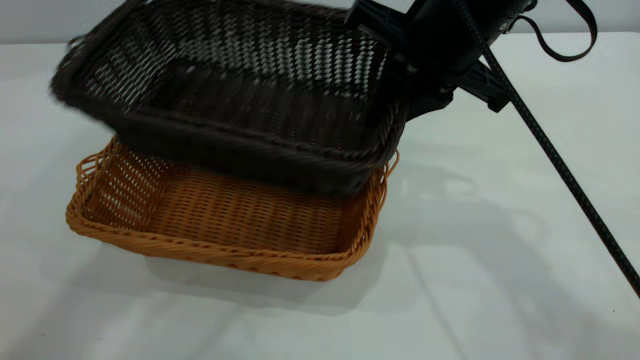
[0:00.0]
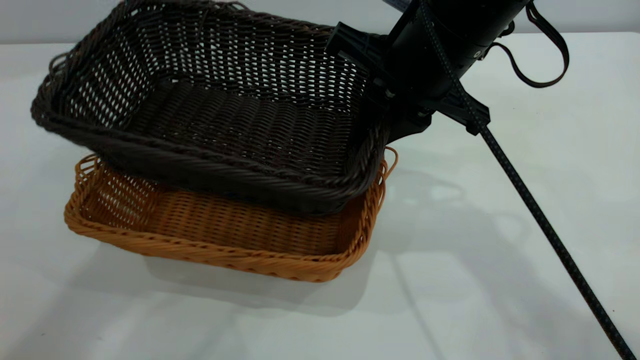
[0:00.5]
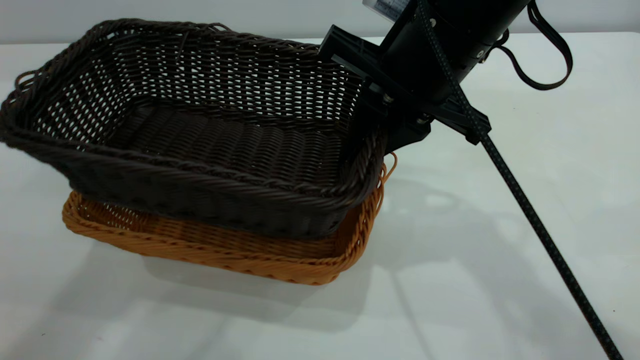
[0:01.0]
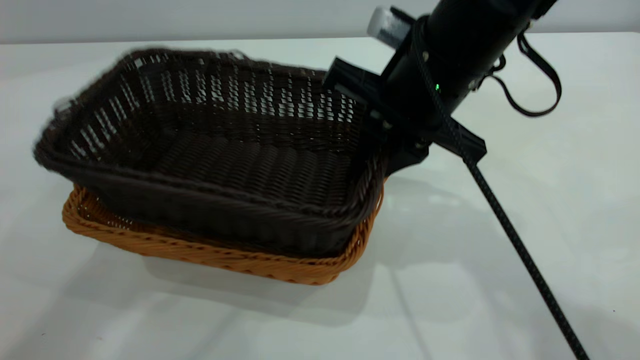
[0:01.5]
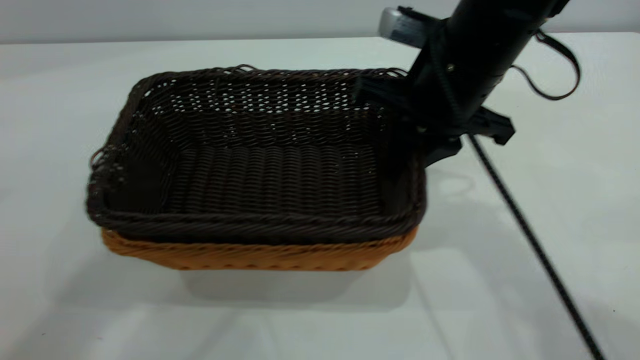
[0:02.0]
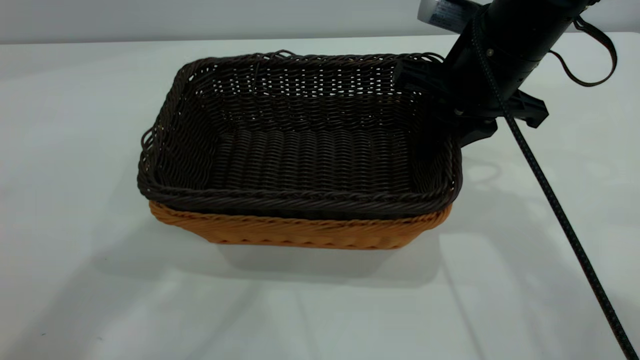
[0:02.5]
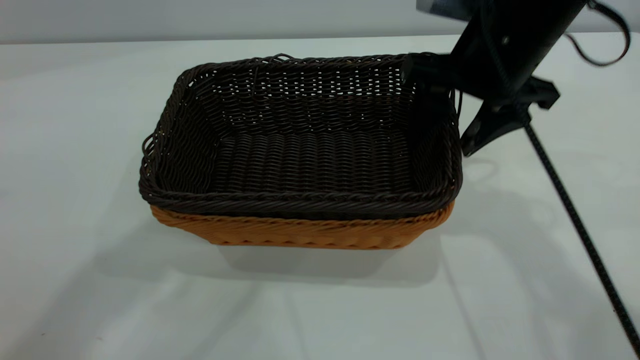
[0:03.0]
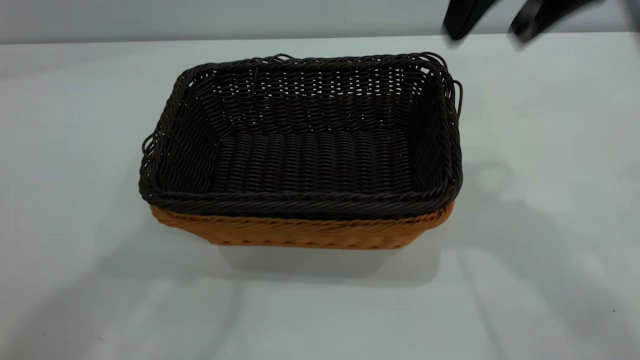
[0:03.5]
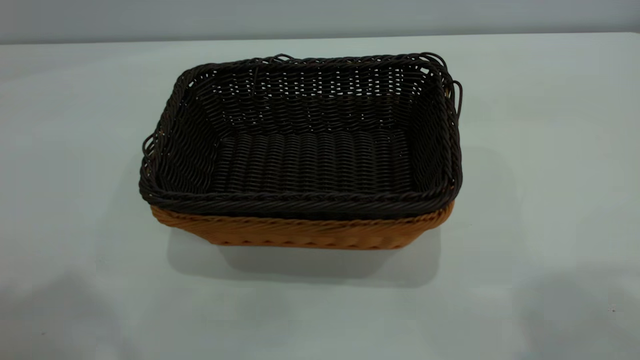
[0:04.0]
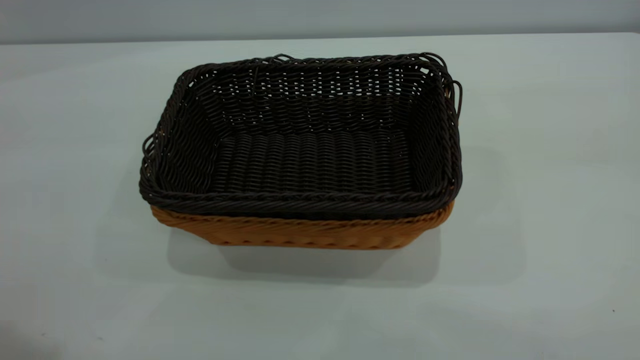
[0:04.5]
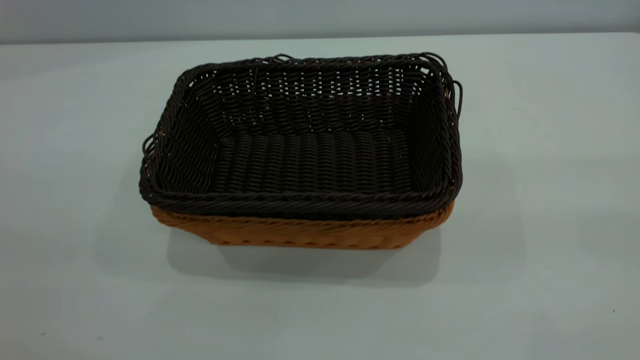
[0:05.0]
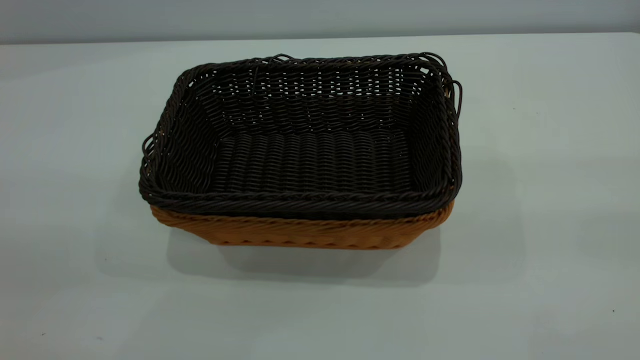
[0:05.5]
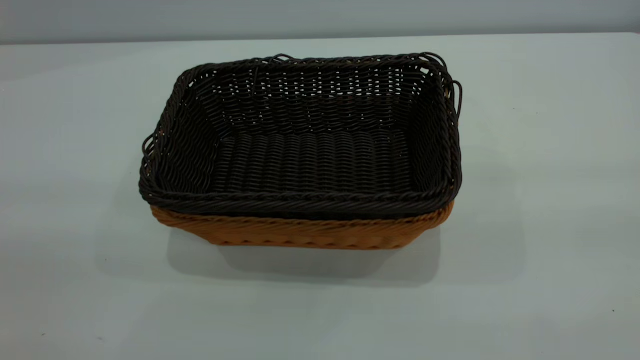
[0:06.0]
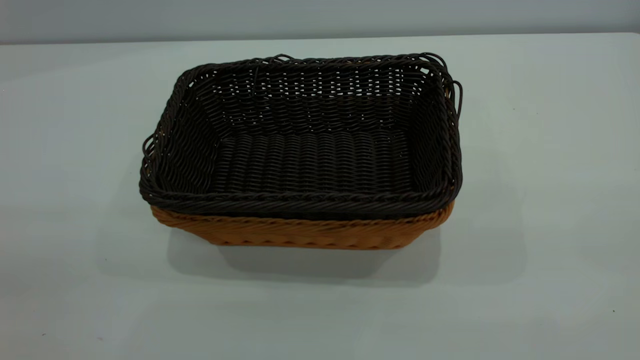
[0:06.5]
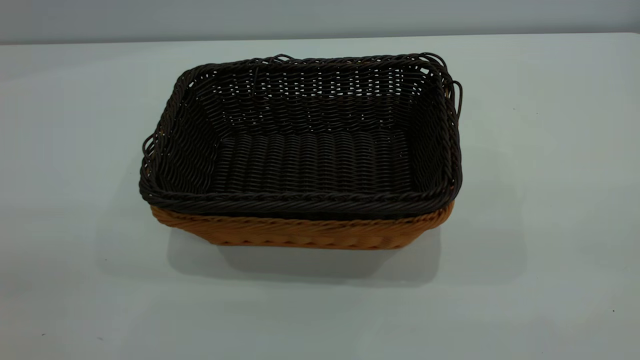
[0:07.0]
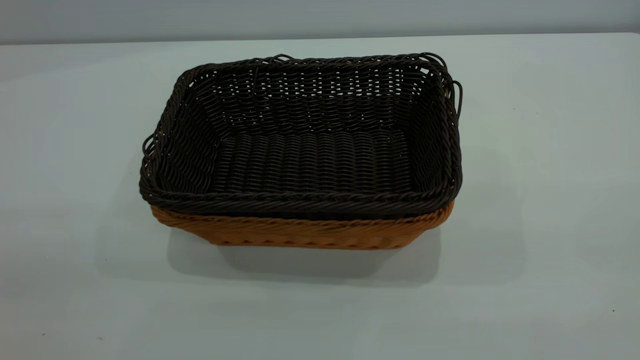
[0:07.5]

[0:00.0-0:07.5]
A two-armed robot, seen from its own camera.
Task of the whole recording: the left gripper grasp the brown basket and place it in the center of the table, the right gripper grasp the black basket and place it inside the brown one.
Step, 0:00.0 to 0:03.0: Place the dark basket on top of the light basket.
0:02.0 to 0:04.0: The right gripper travels upward and backward by some 35 cm, and opens its fingers, while the left gripper goes about 20 cm backward, to the left and upward.

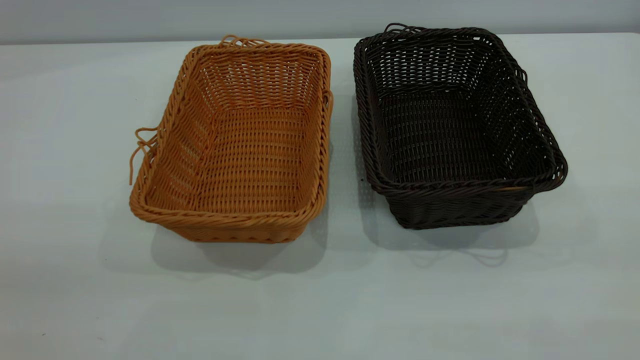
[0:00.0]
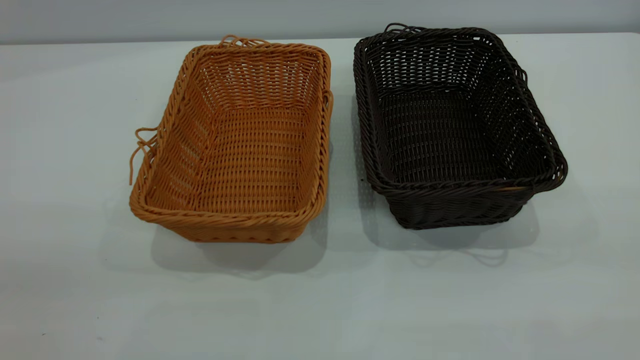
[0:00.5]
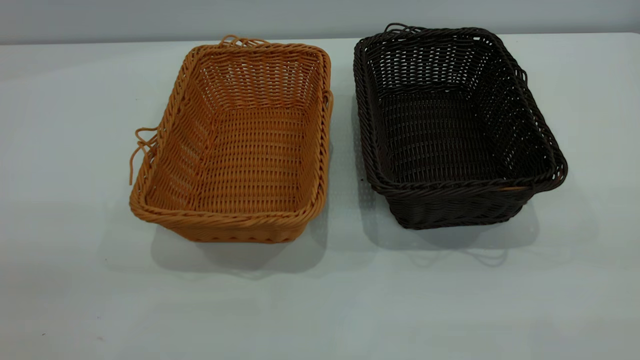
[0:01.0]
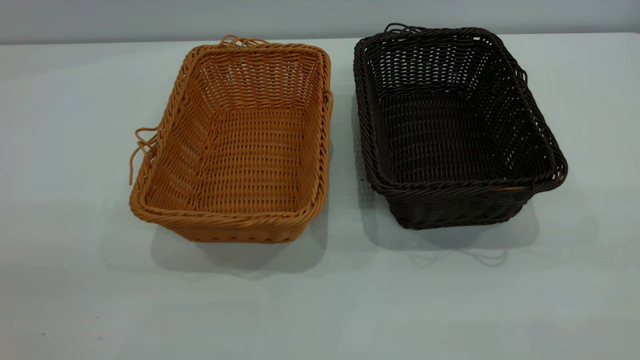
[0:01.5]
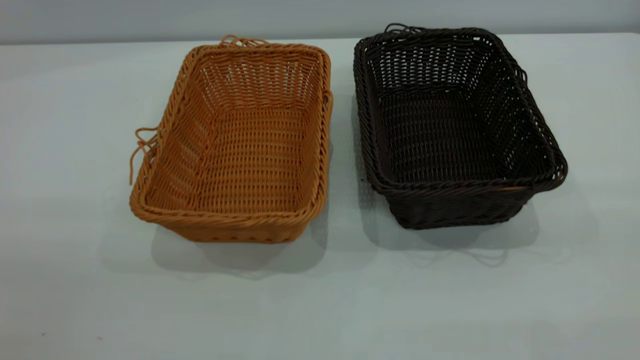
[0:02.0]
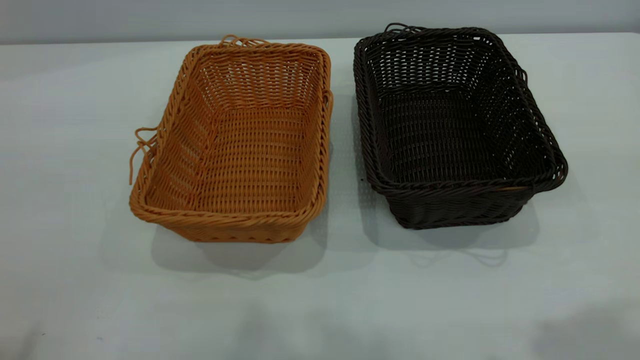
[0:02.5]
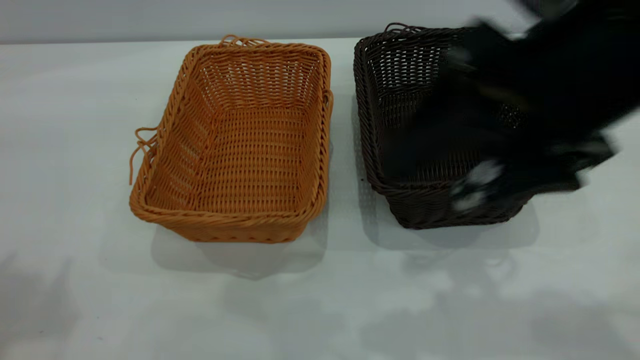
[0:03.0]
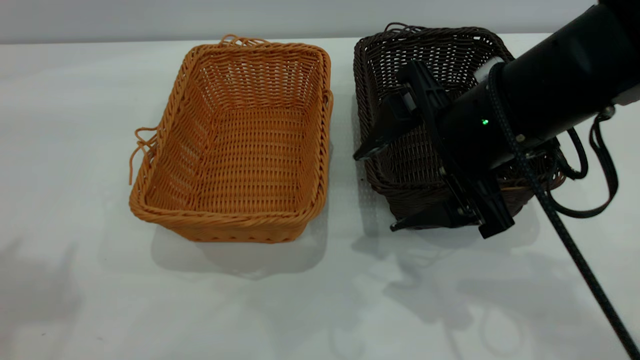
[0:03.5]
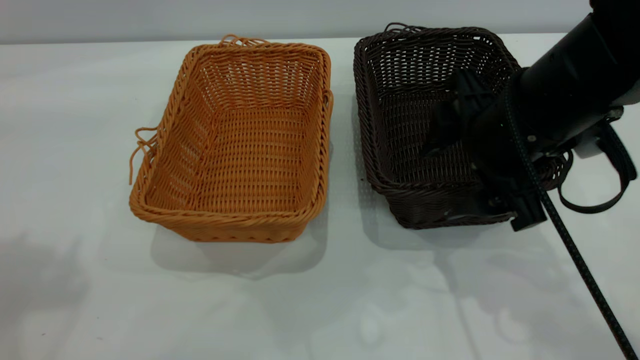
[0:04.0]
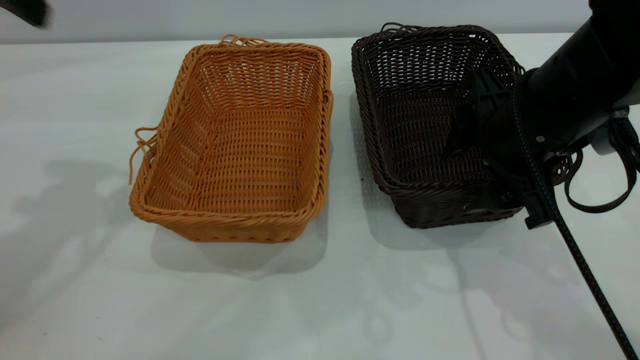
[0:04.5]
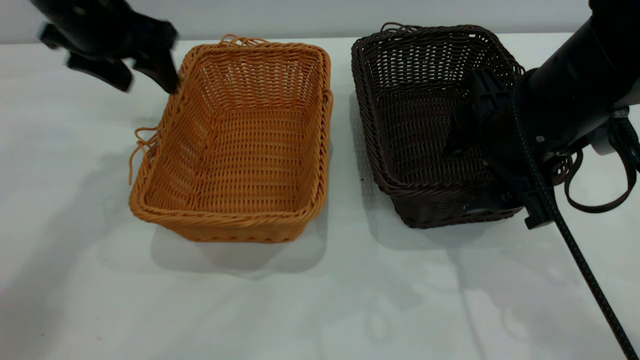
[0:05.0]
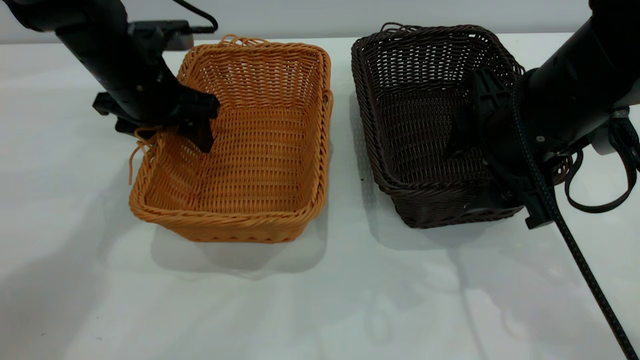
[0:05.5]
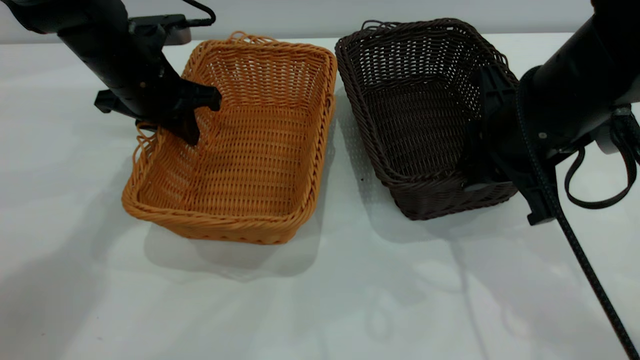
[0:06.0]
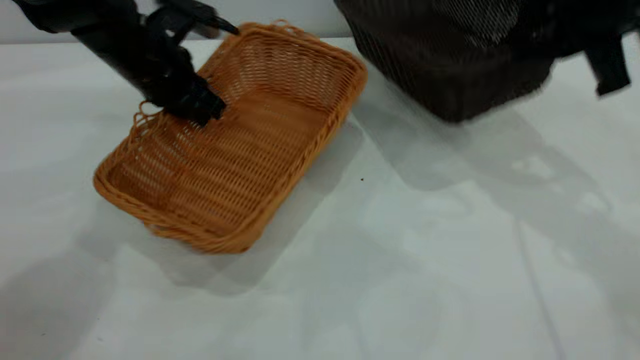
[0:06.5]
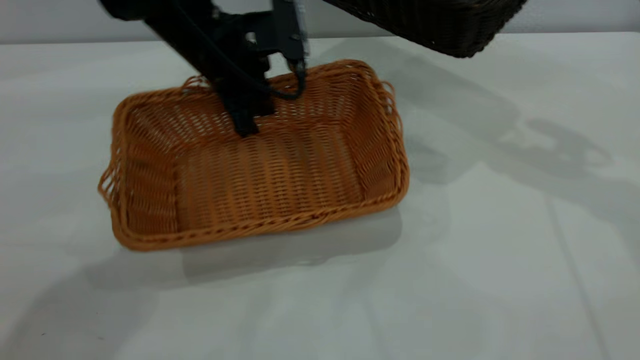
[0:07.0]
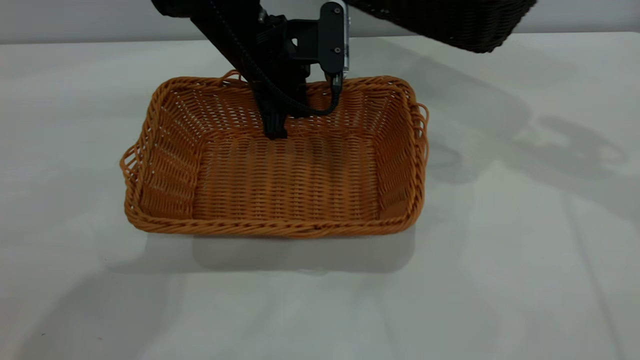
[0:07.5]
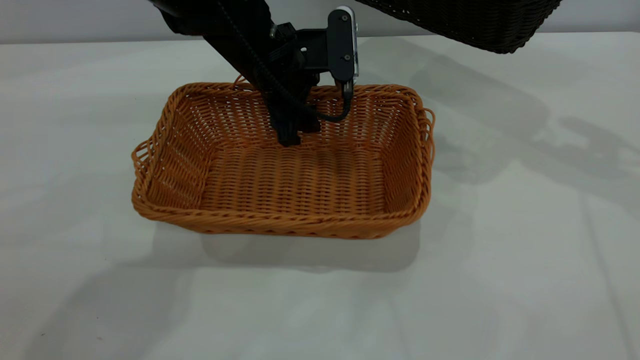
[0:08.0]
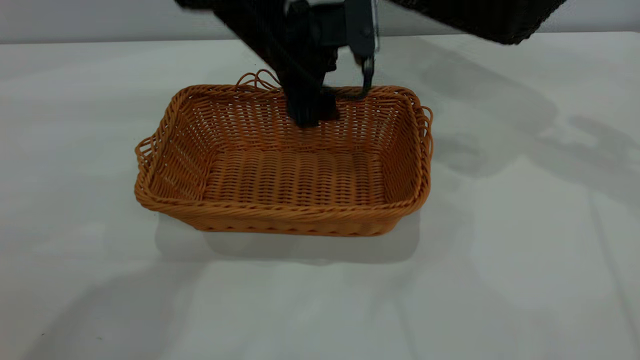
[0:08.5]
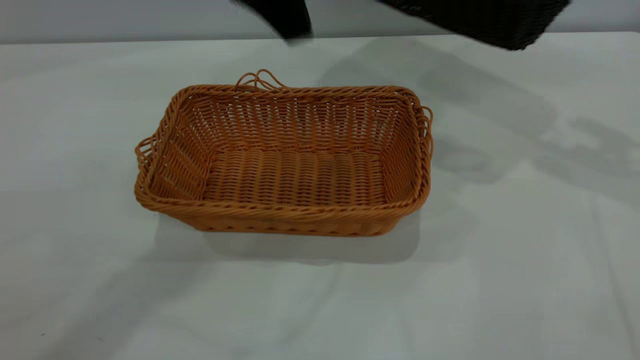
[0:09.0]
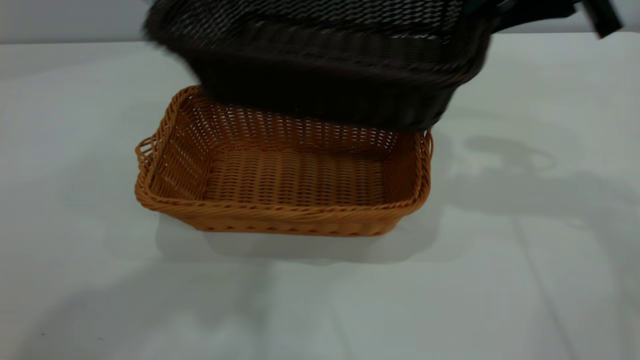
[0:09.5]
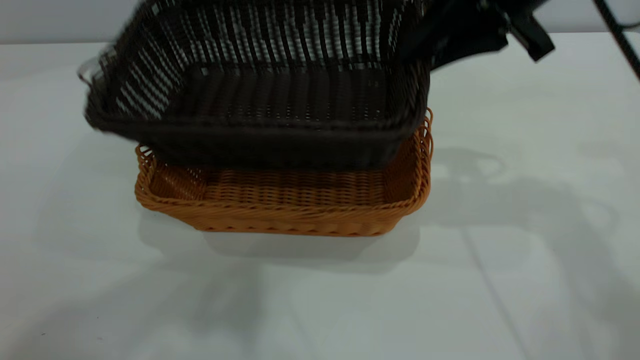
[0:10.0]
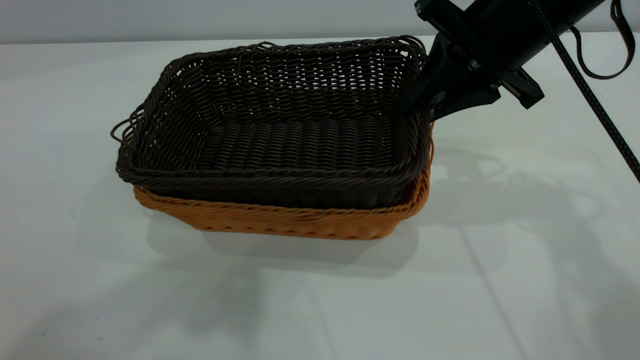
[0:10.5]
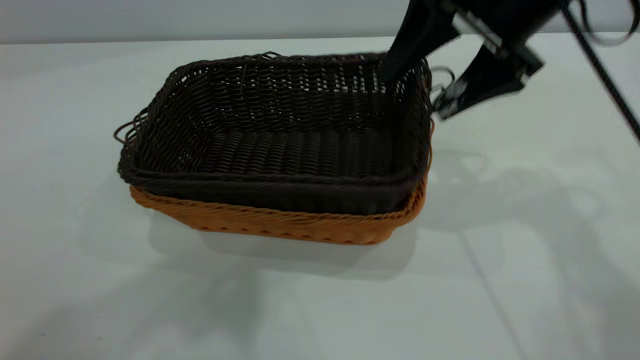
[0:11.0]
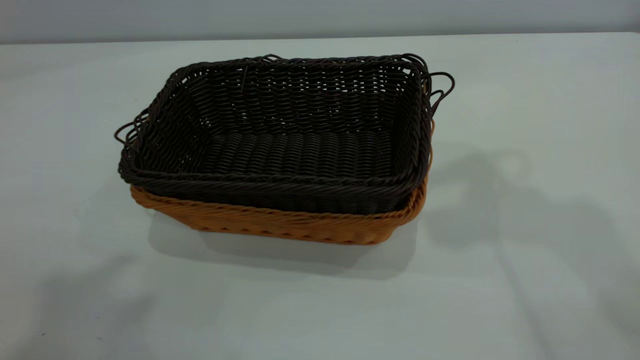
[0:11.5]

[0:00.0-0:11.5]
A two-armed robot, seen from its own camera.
Task of the whole recording: the left gripper grasp the brown basket and place it in the center of the table, the right gripper grasp the black basket and place it inside the brown one.
Step, 0:00.0 to 0:06.0: Pick up the light basket with the right gripper.
Step, 0:06.5 to 0:08.5: Place the light-colored basket in the center.
Step, 0:09.0 to 0:11.0: Place the dark basket on top of the light basket.
0:02.0 to 0:04.0: The right gripper is displaced forward, downward and to the left by roughly 35 cm.
0:04.0 to 0:06.0: The right gripper closes up. The left gripper moves downward and forward, some 35 cm, and closes up.
0:06.0 to 0:07.5: The left gripper heads to the right, covering approximately 15 cm. Meanwhile the right gripper travels upward, to the right and forward by roughly 20 cm.
0:07.5 to 0:09.5: The right gripper shifts approximately 10 cm to the left. Meanwhile the left gripper heads upward and backward, covering approximately 40 cm, and opens.
0:09.5 to 0:11.5: The left gripper heads backward, to the left and upward, covering about 15 cm. The right gripper goes approximately 15 cm upward, and opens.

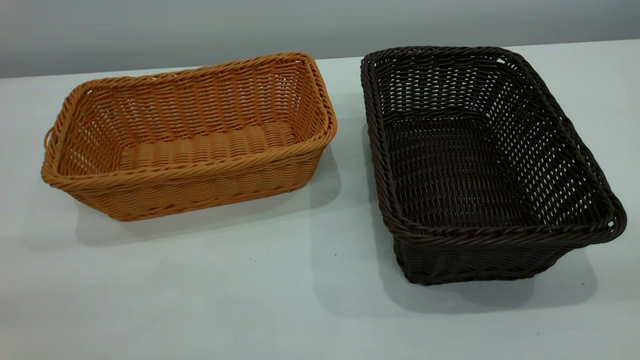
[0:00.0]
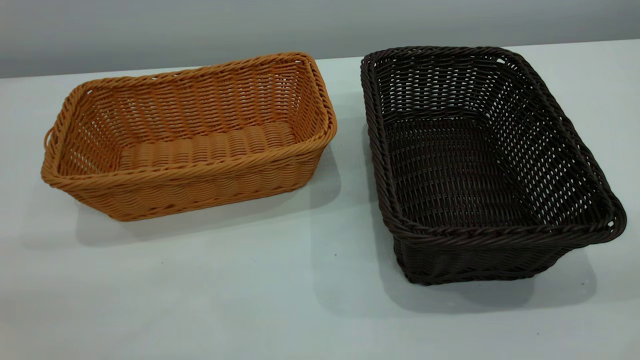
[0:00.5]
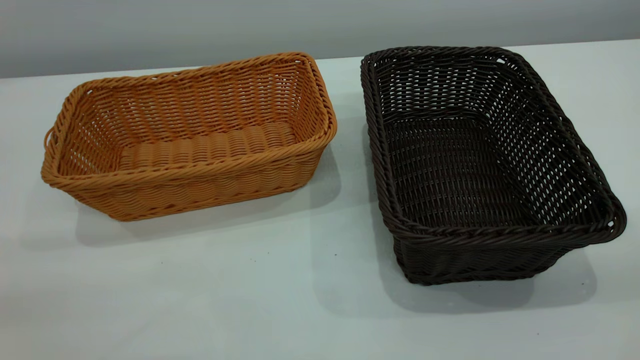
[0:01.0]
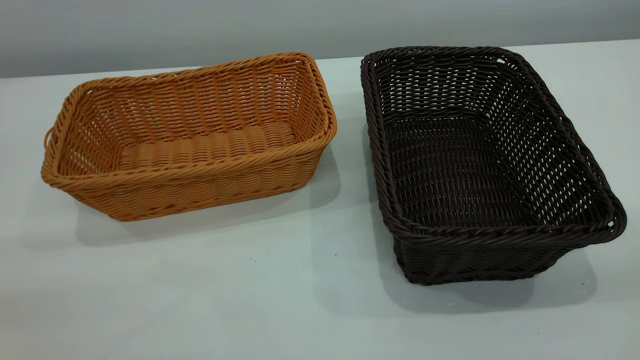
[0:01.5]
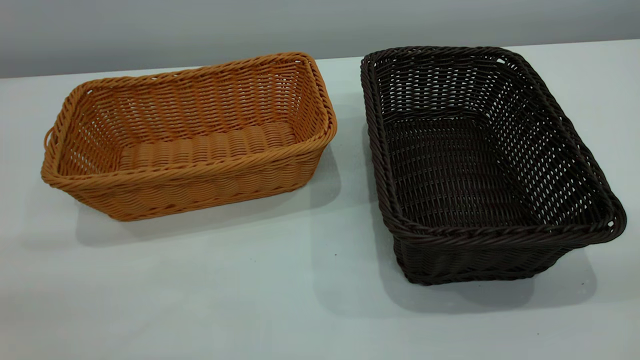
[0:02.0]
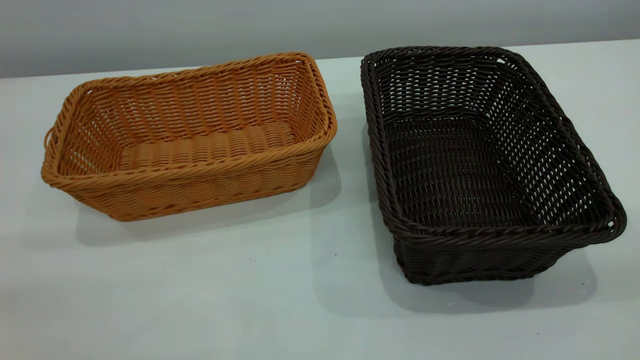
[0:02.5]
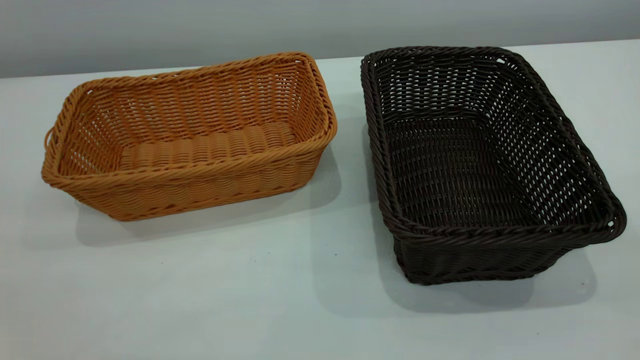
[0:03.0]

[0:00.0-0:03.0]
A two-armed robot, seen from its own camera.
Task of the whole recording: the left gripper grasp the brown basket and place it in the center of the table, the right gripper grasp the black basket and place it inside the brown one.
0:00.0 to 0:01.5: Both grippers stay put.
